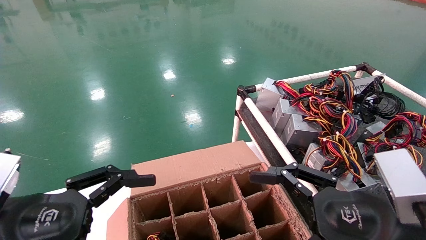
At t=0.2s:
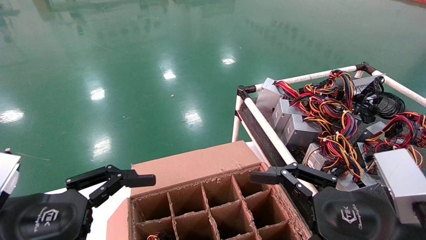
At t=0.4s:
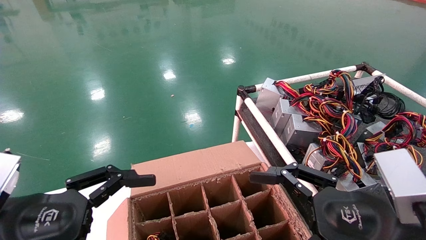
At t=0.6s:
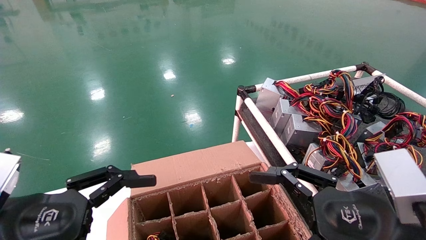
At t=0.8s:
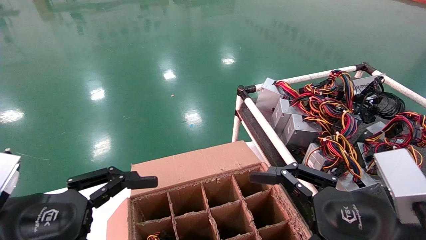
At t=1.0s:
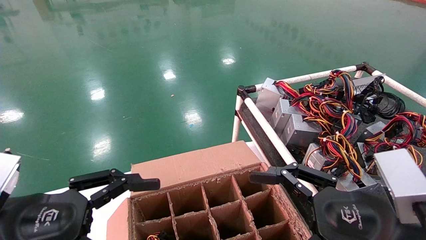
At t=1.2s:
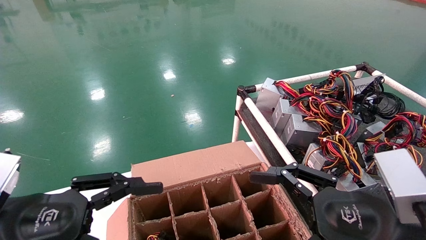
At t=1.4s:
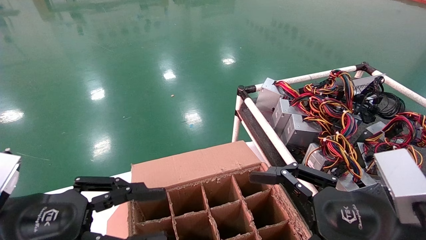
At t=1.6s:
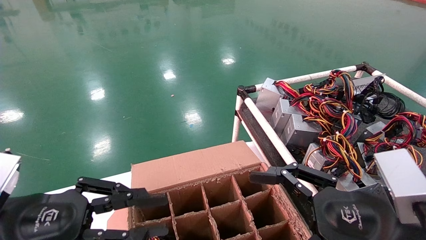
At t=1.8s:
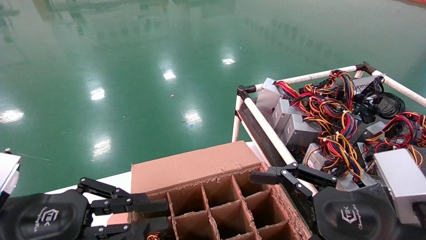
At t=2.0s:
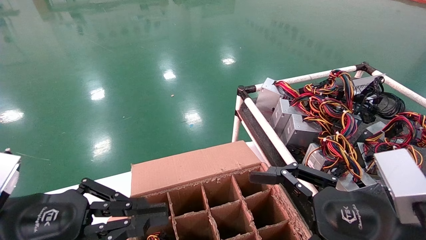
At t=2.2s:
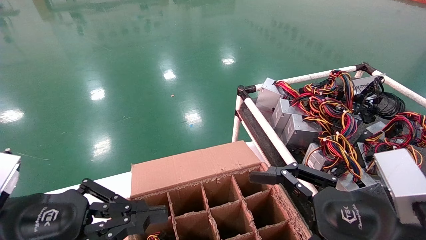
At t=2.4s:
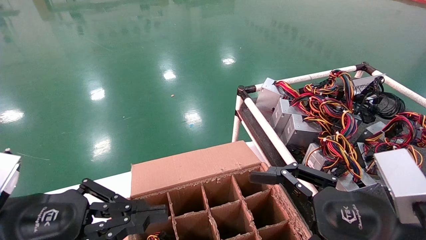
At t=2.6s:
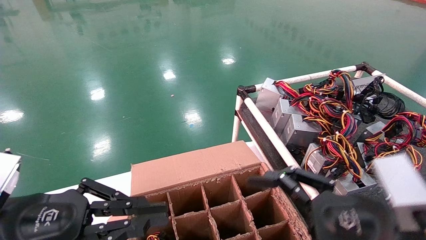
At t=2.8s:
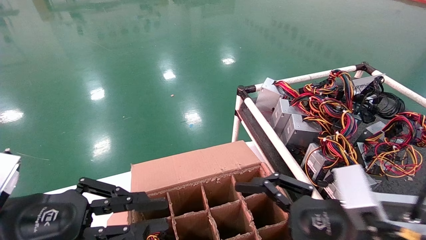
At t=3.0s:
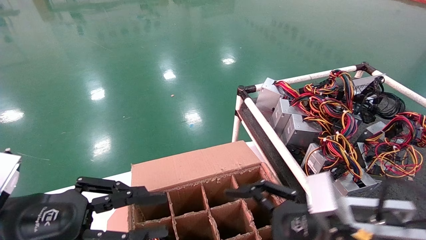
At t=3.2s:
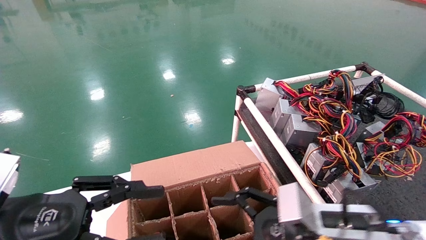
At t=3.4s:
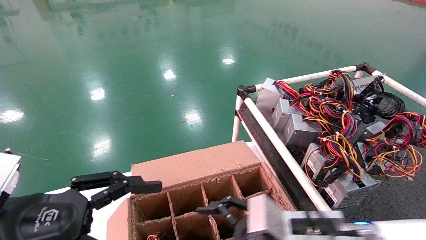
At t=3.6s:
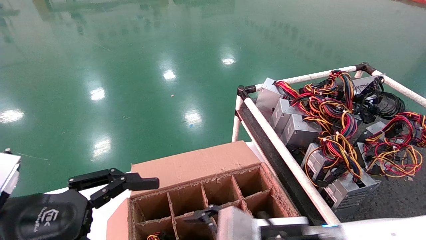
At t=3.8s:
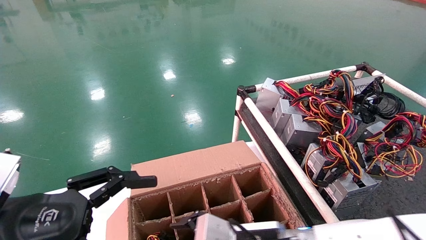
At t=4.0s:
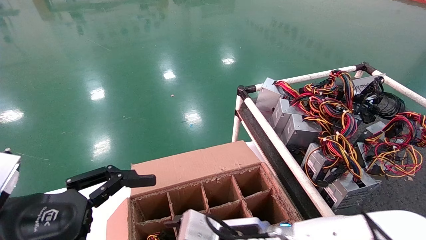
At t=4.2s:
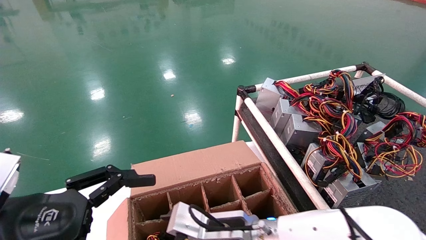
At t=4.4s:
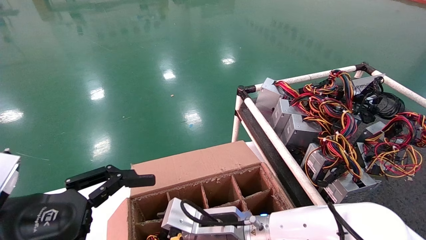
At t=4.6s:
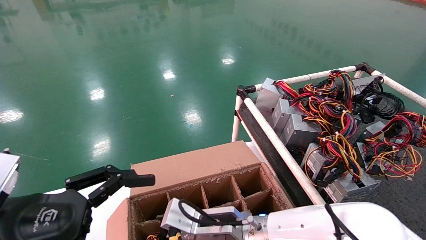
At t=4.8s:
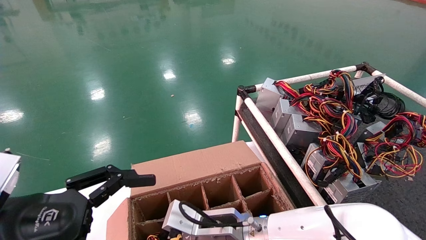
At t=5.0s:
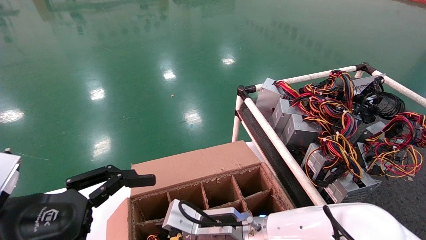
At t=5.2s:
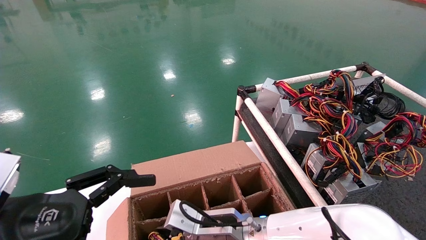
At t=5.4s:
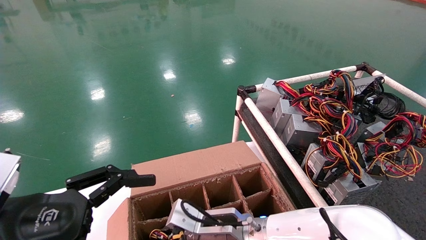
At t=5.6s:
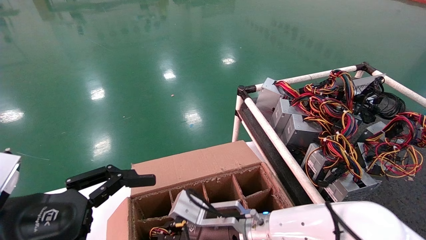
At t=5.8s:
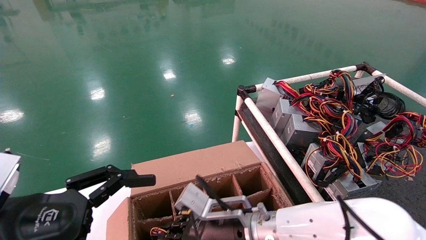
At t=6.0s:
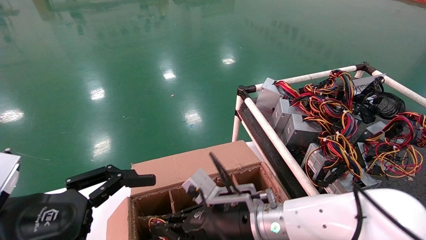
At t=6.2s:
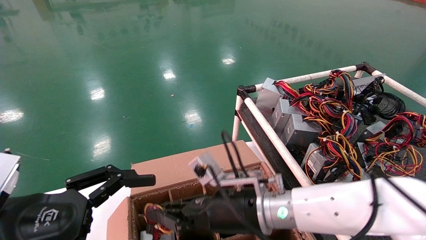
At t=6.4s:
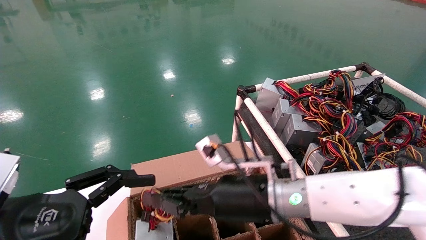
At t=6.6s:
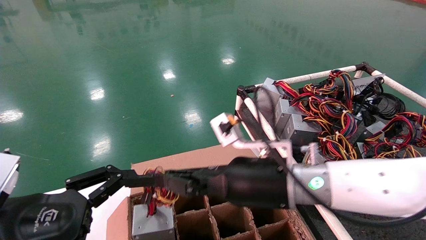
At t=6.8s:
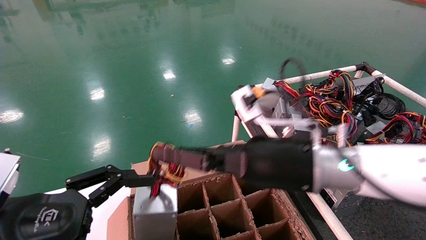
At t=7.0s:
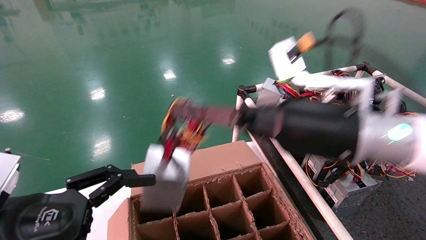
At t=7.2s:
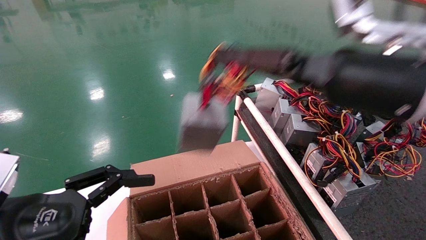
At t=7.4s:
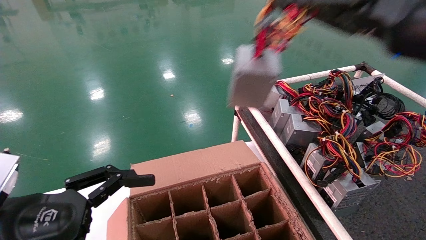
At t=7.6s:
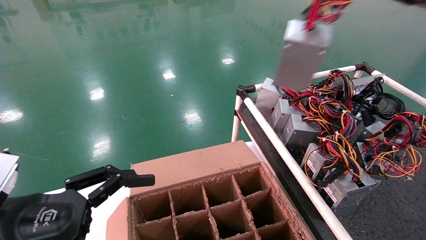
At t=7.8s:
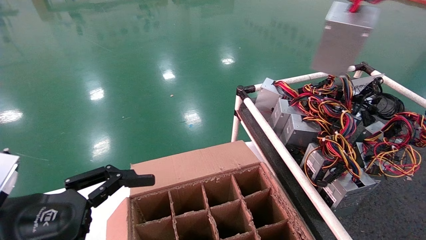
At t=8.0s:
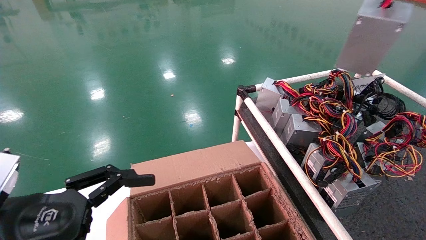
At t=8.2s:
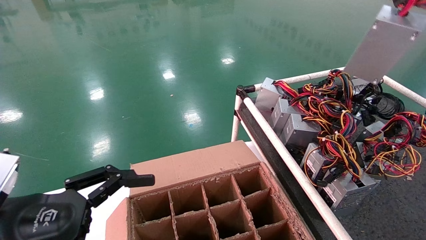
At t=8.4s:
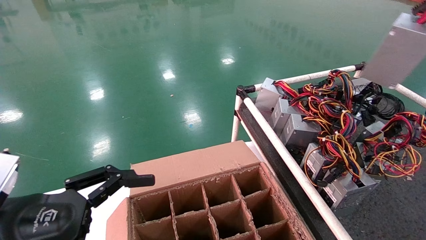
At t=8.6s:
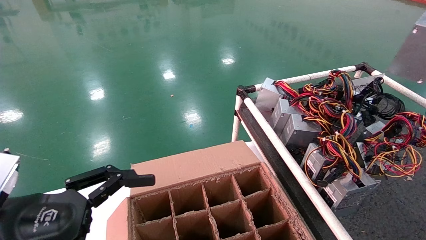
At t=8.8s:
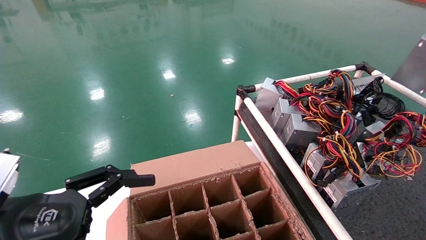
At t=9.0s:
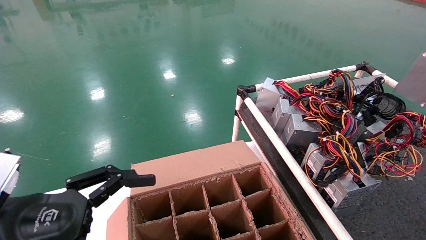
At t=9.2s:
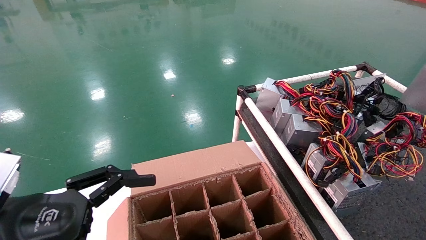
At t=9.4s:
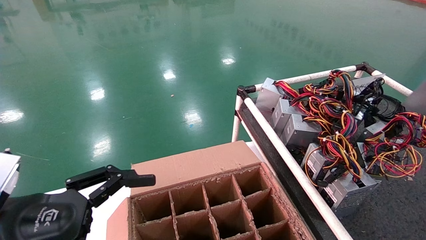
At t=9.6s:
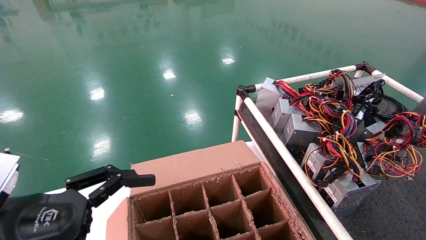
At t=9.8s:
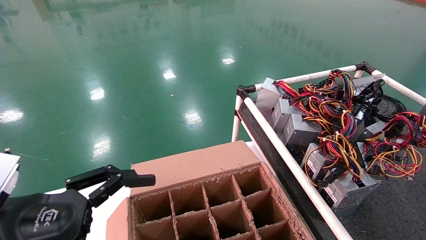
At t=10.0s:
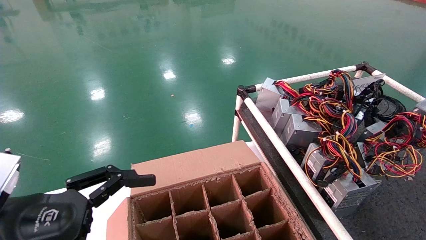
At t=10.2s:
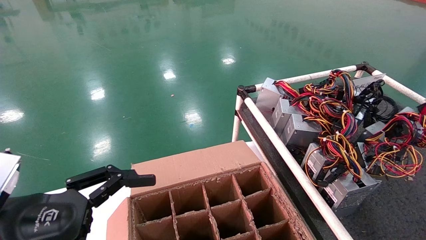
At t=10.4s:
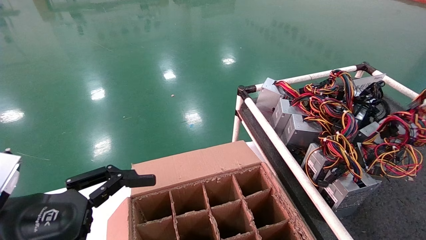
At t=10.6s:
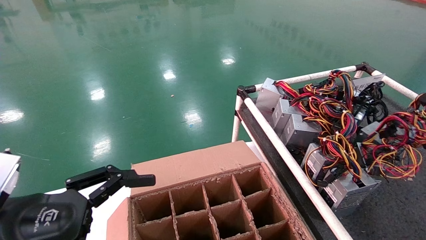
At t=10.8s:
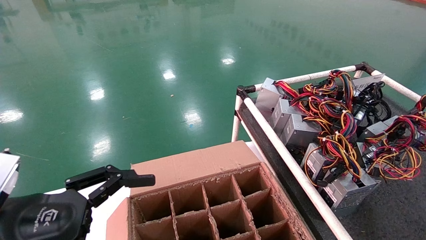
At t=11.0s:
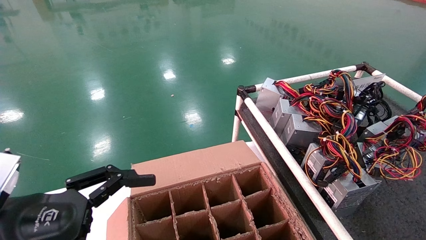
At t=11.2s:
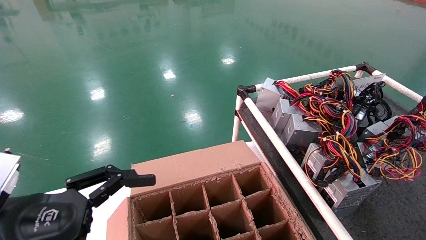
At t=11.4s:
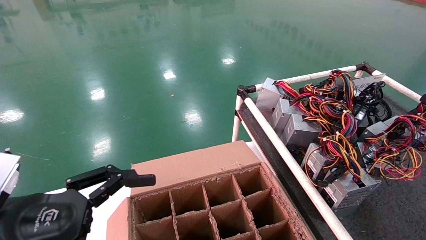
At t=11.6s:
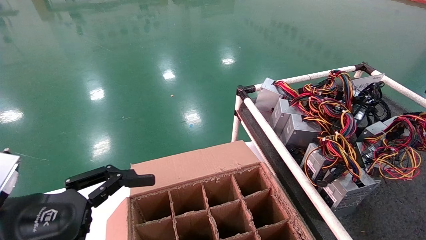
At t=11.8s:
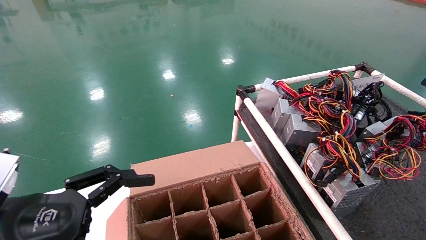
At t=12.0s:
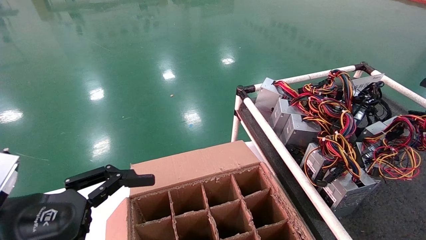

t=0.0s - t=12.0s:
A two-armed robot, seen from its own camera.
Step, t=0.6s - t=5.2s: Grab and lift the power supply from the large box.
Step, t=5.4s - t=10.8s: Place the power supply on the operating table.
t=0.0s - t=1.6s: The left gripper closes.
t=1.6s - t=3.0s: The right gripper changes place by about 5 cm.
t=3.0s - t=4.4s: The right gripper travels to the left, forward and downward by approximately 20 cm, while the left gripper opens.
t=4.4s - t=6.0s: The right gripper closes.
t=6.0s - t=7.6s: The right gripper travels upward and to the right by about 40 cm.
t=7.6s - t=9.0s: The right gripper heads to the right, covering roughly 20 cm.
t=9.0s - t=10.4s: The right gripper goes approximately 15 cm downward and forward.
t=10.4s - t=12.0s: The right gripper opens up.

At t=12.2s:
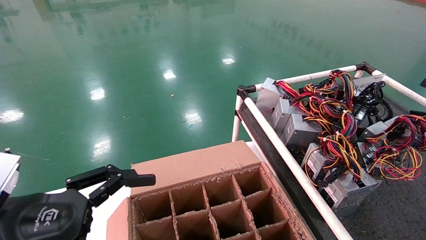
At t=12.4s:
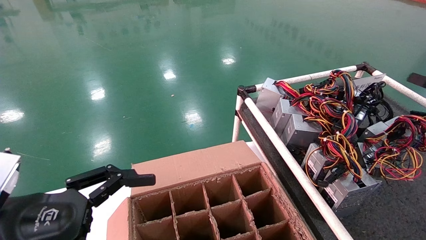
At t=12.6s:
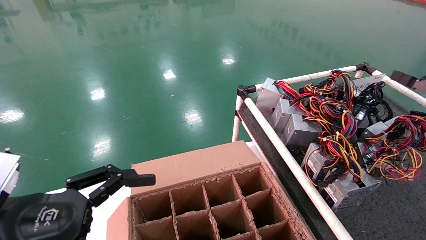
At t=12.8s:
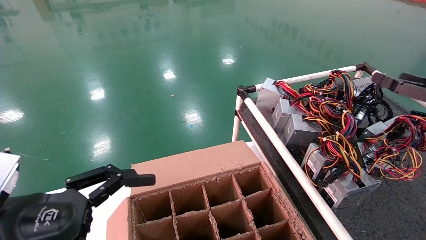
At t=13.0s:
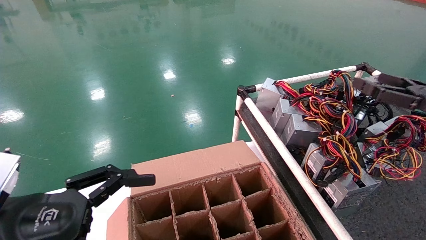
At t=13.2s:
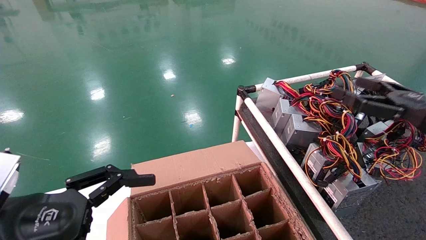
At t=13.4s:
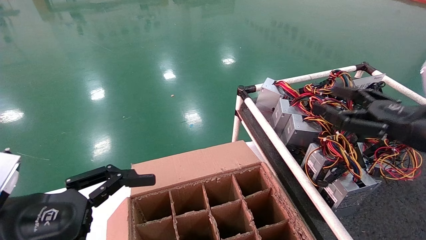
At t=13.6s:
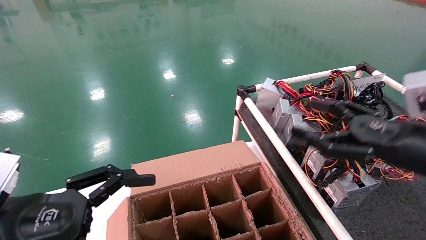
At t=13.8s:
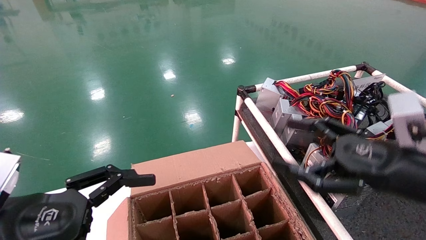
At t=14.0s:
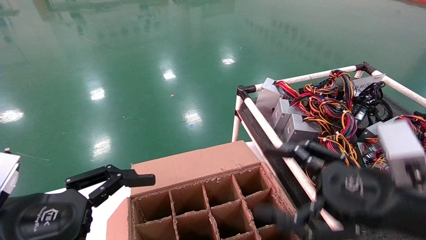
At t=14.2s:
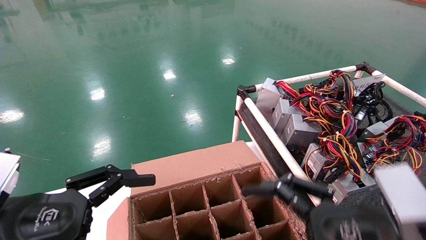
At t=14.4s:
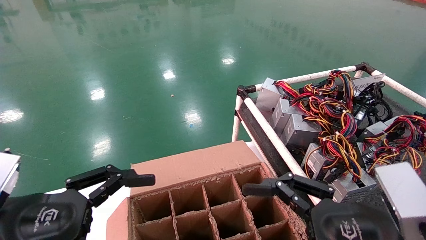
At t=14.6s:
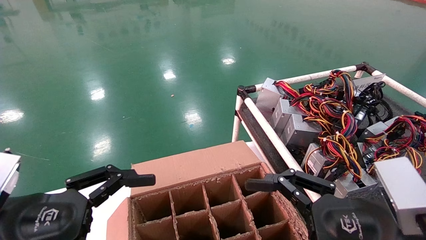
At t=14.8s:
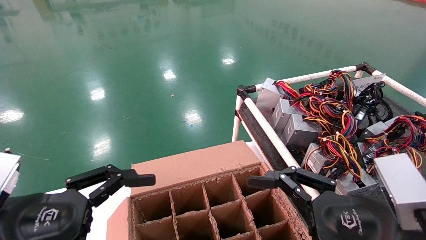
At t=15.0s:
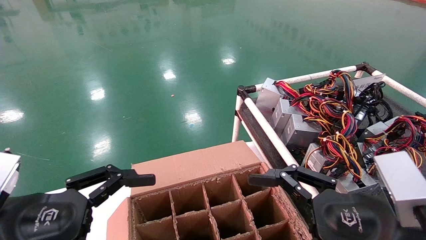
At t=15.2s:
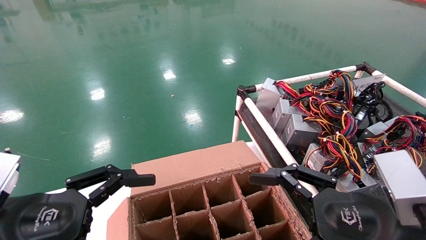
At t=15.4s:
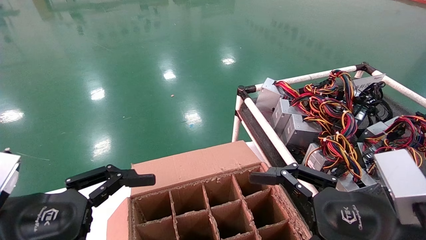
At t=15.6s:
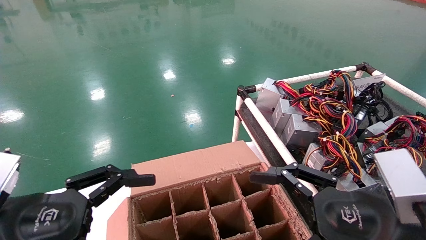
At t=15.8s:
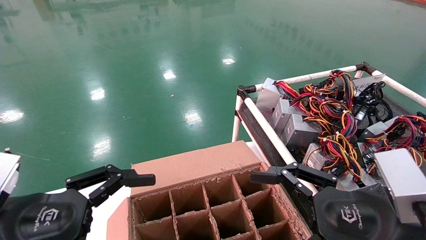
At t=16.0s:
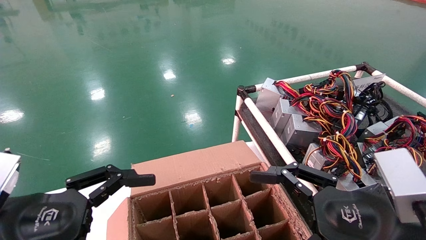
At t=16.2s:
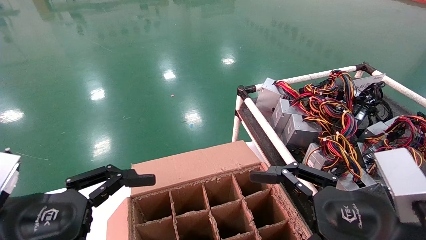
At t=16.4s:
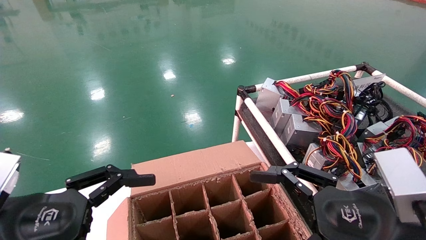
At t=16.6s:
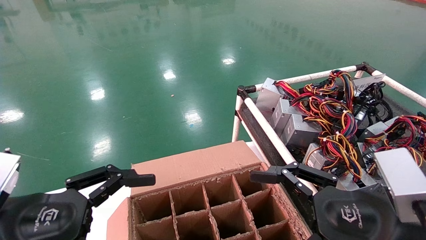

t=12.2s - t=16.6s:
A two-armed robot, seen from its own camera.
t=12.2s - t=13.6s: The right gripper is displaced to the left by about 20 cm.
t=13.6s - t=15.2s: The right gripper moves to the left, backward and downward, roughly 10 cm.
t=15.2s - t=16.6s: The two grippers keep their place.
